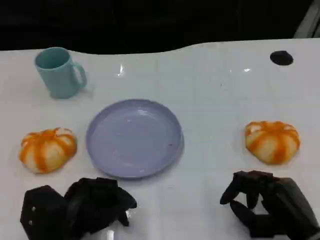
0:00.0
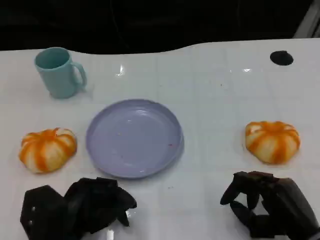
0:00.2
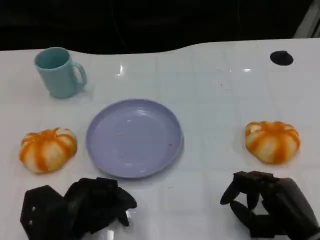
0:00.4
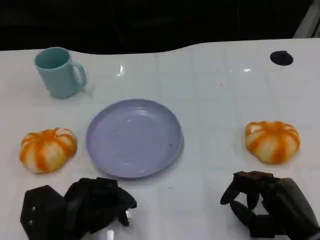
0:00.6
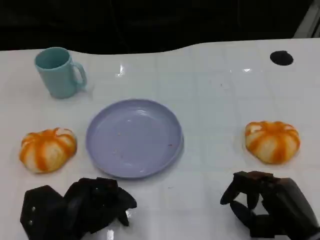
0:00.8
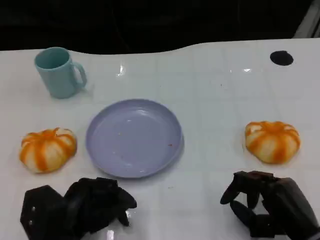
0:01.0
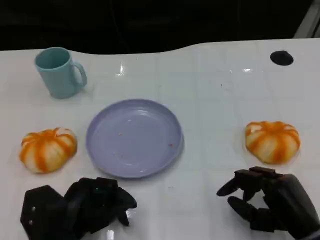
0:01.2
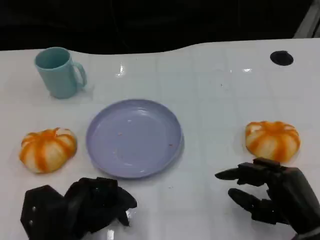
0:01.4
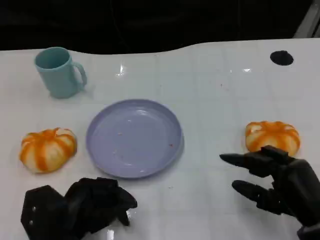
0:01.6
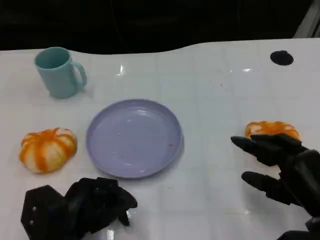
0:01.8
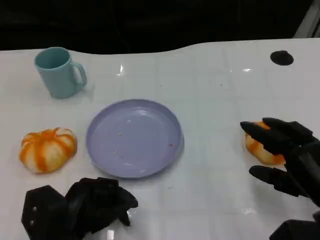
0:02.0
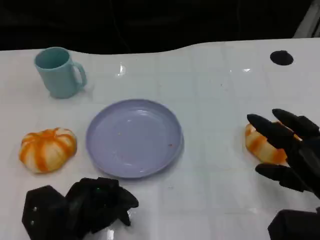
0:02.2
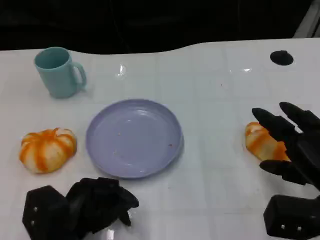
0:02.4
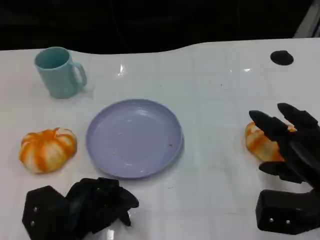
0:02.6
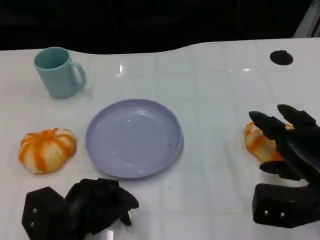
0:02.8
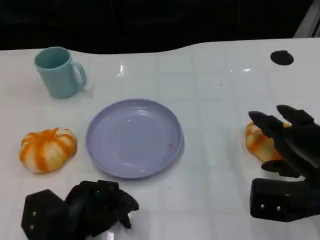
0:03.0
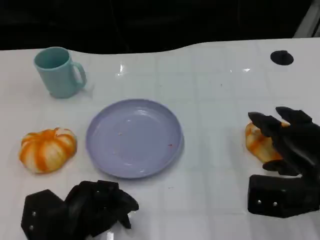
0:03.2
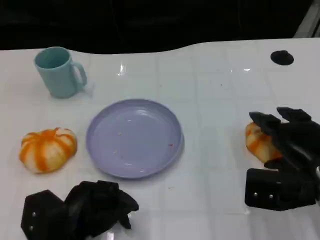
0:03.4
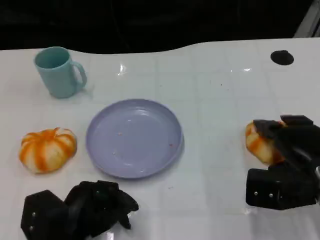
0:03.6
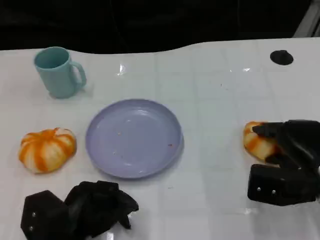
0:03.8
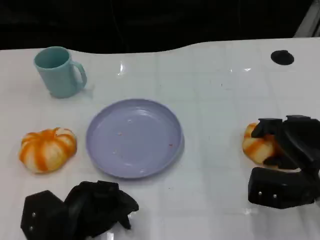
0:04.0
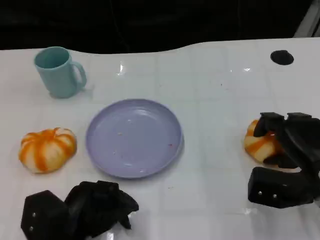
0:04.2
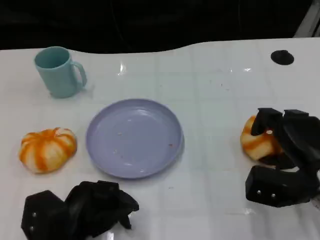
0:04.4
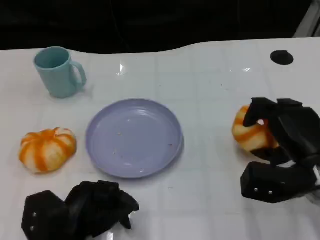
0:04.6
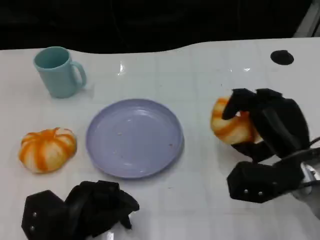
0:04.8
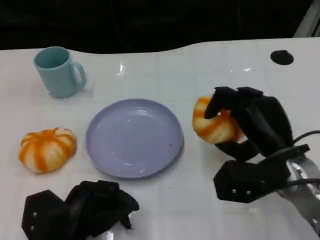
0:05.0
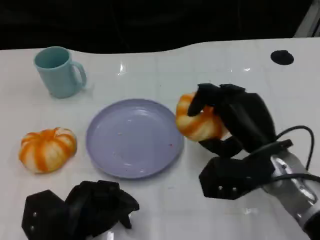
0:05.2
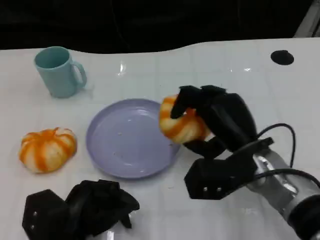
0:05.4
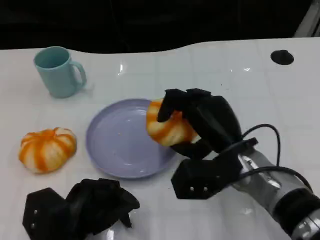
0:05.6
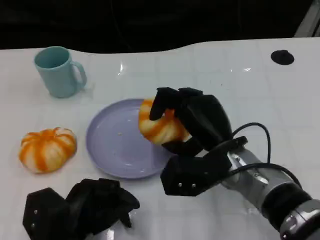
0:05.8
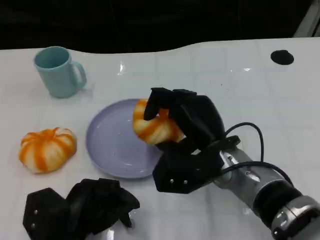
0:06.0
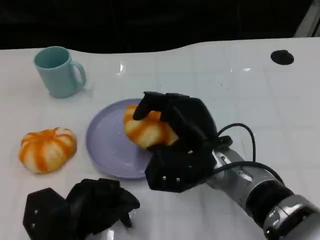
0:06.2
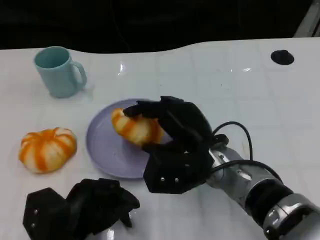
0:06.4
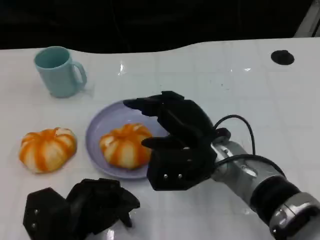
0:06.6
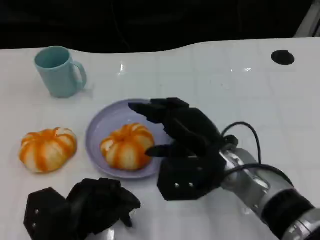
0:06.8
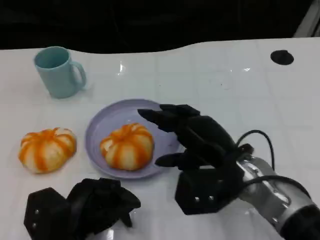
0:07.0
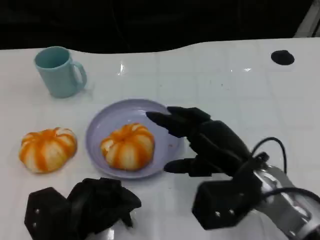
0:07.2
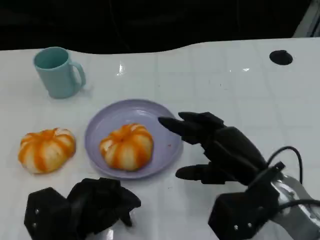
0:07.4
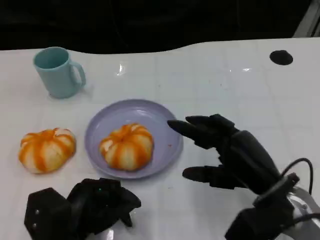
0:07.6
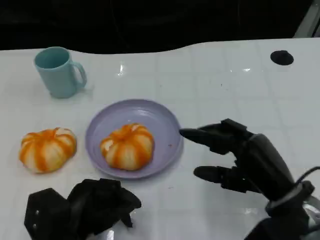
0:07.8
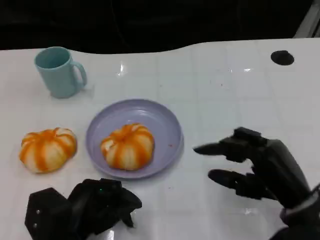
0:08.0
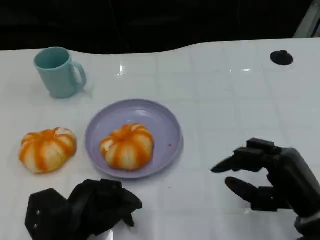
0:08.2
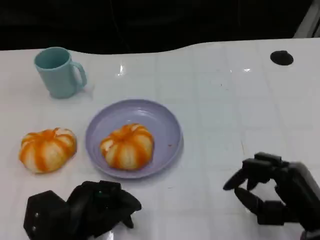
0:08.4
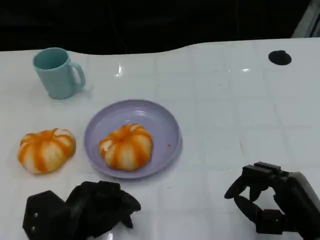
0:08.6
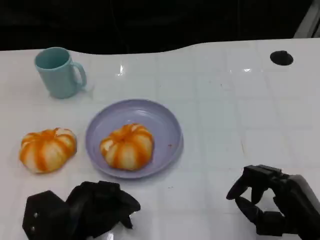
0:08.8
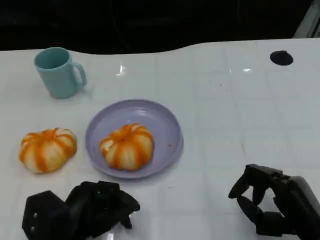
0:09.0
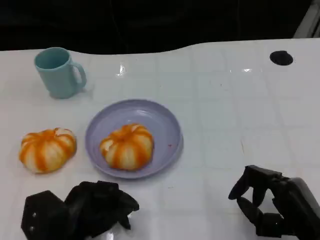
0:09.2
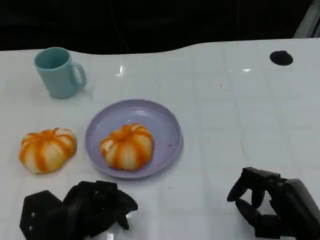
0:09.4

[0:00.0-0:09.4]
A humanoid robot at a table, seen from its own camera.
Task of the whole recording: Grasp the bread from the table and place it into the plate.
0:00.0 to 0:01.6: There are only small adjustments of the hands.
0:01.6 to 0:03.2: The right hand is displaced forward by approximately 5 cm.
0:04.8 to 0:06.2: The right hand travels to the left by approximately 15 cm.
0:06.2 to 0:07.8: The right hand shifts approximately 15 cm to the right and backward.
0:07.8 to 0:09.4: The right hand changes place by about 10 cm.

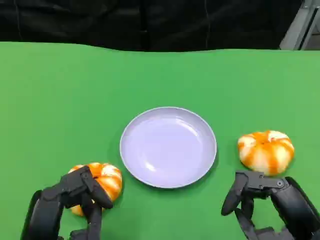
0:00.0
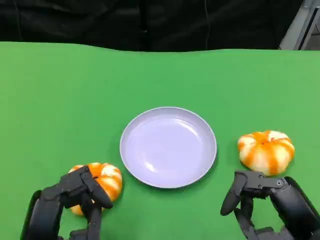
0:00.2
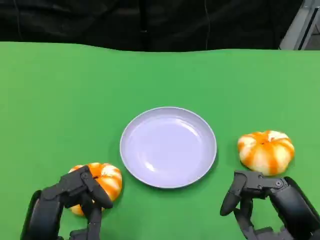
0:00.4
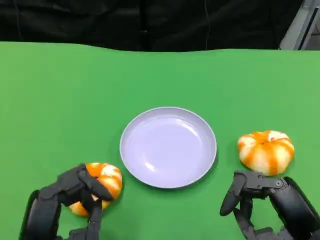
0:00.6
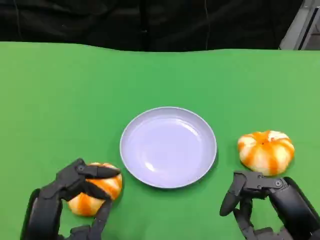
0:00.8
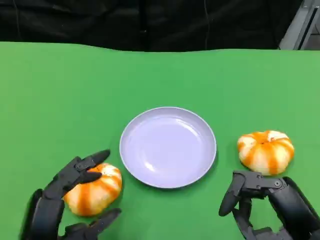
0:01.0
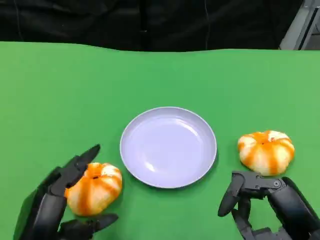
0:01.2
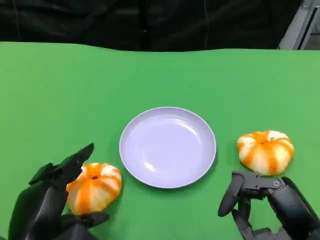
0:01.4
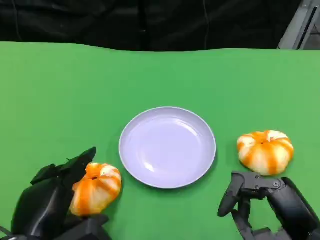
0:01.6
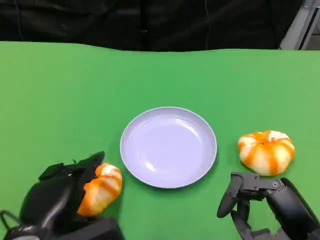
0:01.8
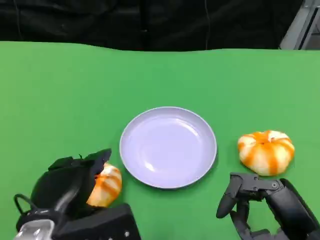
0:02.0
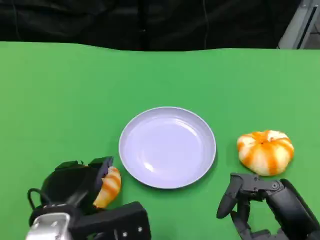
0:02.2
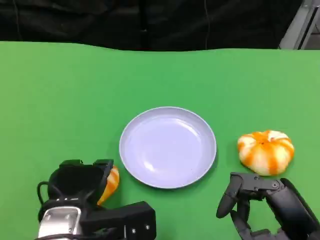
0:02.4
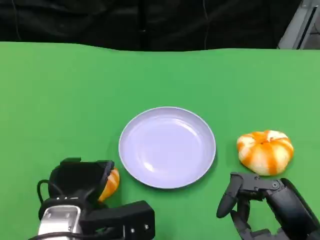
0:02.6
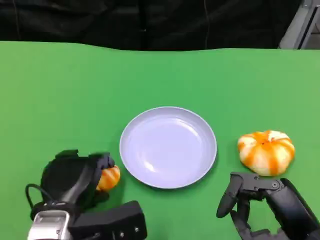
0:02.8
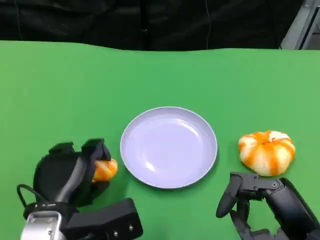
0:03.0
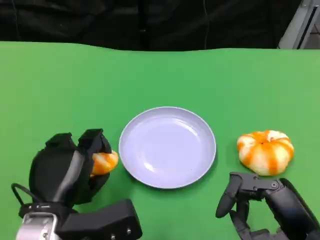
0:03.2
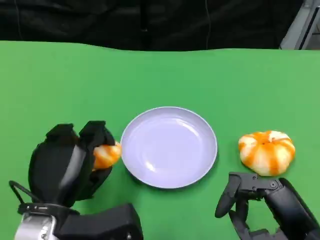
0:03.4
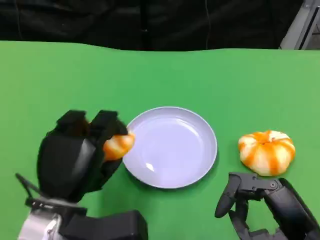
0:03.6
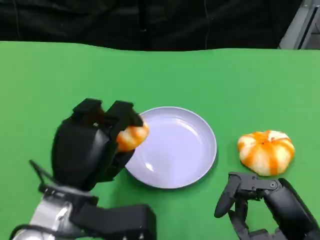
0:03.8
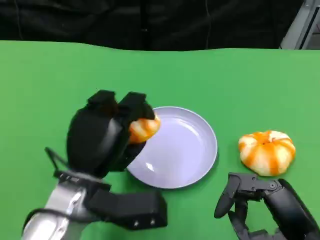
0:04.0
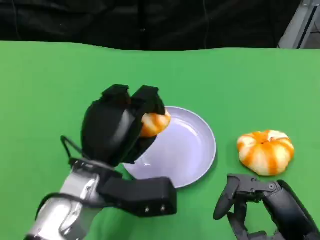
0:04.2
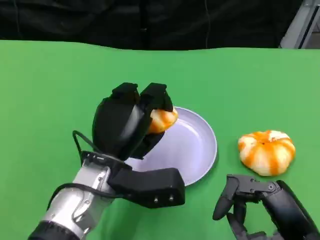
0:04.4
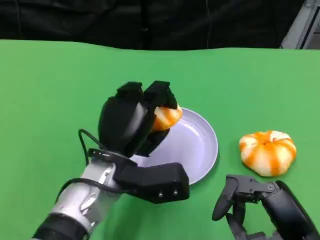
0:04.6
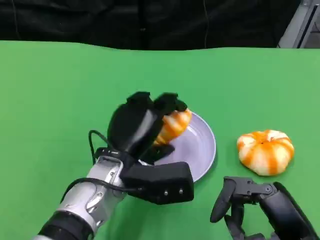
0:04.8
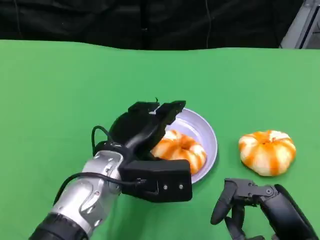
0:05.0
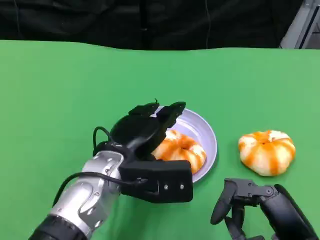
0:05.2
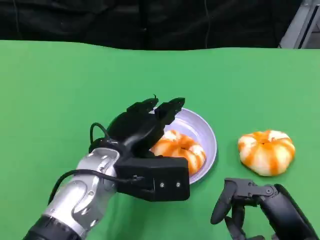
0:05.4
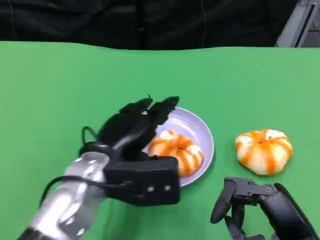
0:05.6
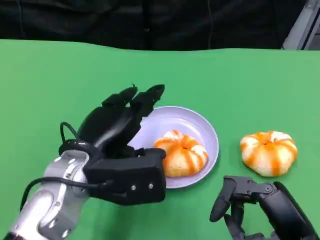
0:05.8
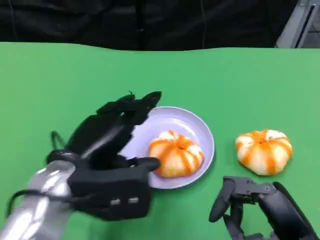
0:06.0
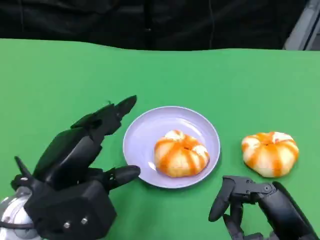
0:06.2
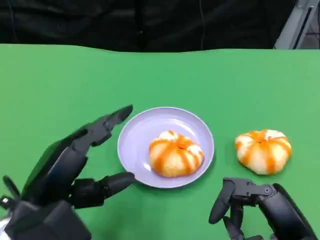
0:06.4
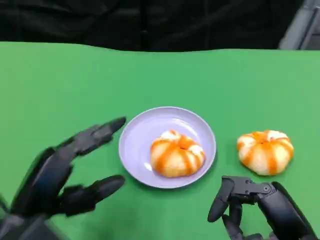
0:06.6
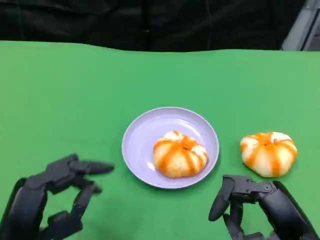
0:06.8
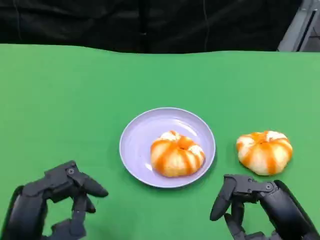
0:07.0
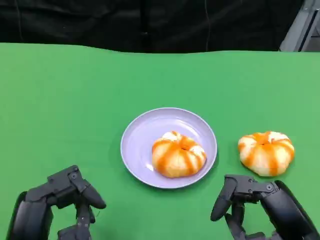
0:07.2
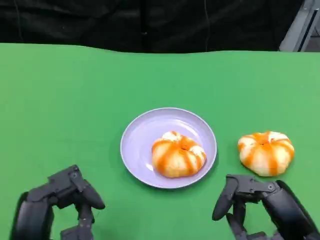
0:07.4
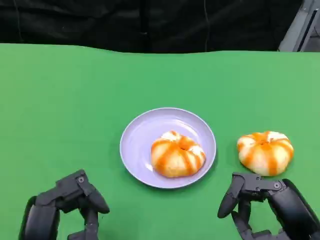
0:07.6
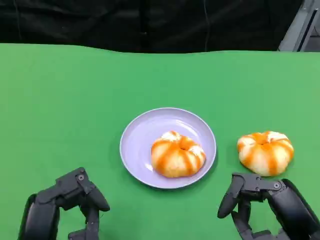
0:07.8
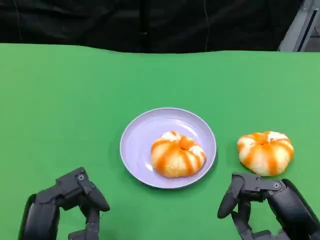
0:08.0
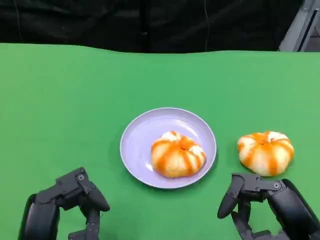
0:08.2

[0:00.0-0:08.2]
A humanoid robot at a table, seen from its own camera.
Task of the whole recording: Grasp the bread from the table and place it into the plate.
0:03.2 to 0:05.0: The left hand is displaced to the right and forward by approximately 10 cm.
0:05.0 to 0:06.6: The left hand is displaced to the left and backward by about 15 cm.
0:06.6 to 0:08.2: The hands make only small movements.

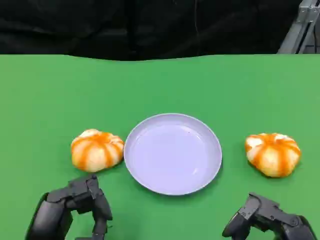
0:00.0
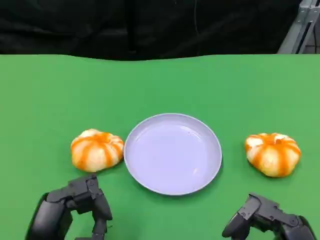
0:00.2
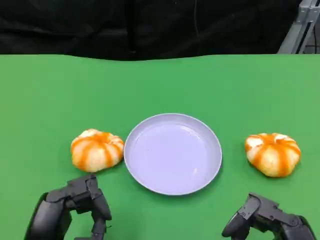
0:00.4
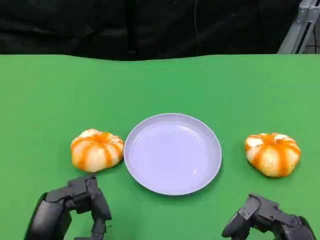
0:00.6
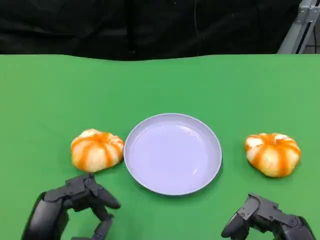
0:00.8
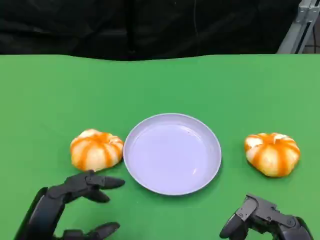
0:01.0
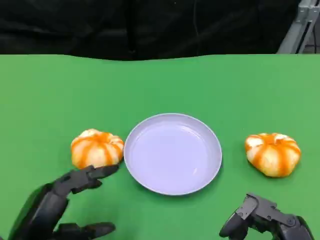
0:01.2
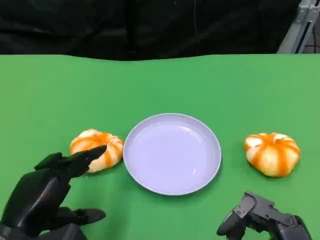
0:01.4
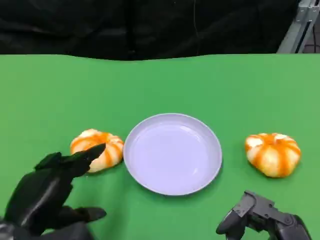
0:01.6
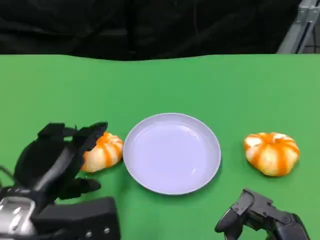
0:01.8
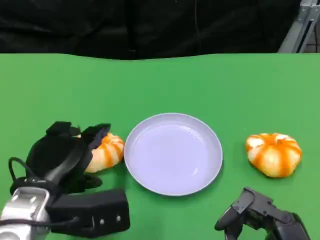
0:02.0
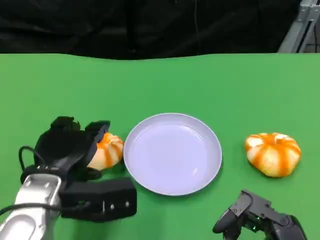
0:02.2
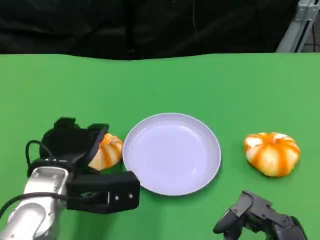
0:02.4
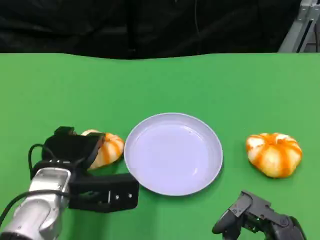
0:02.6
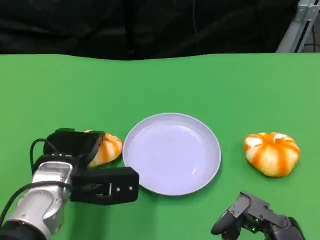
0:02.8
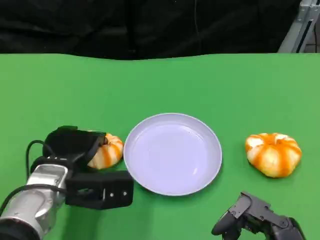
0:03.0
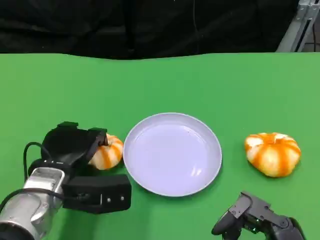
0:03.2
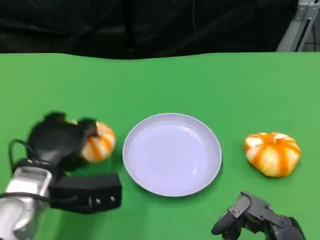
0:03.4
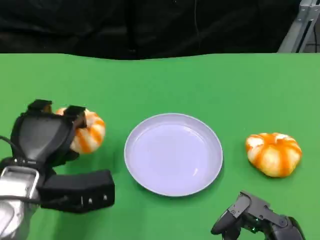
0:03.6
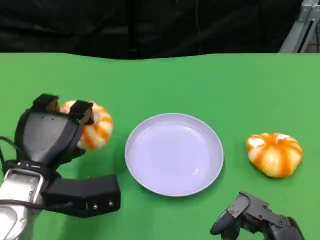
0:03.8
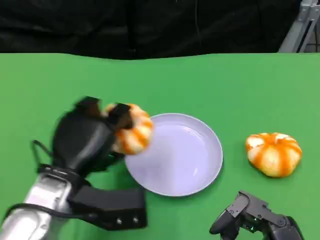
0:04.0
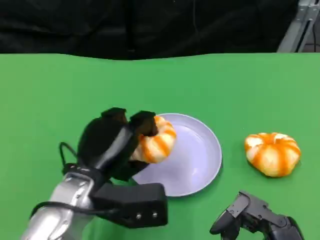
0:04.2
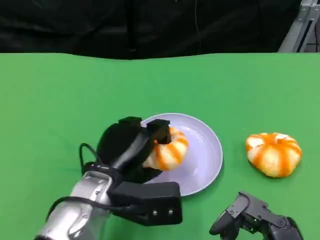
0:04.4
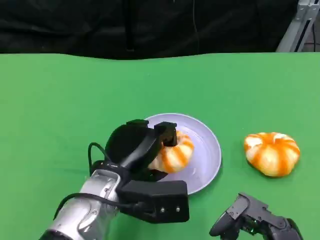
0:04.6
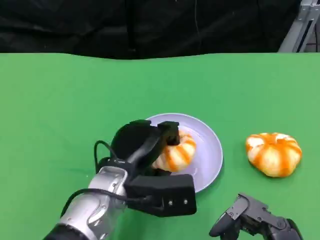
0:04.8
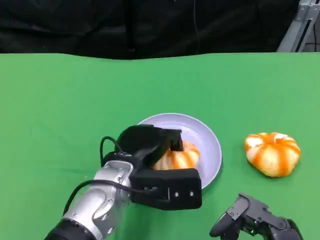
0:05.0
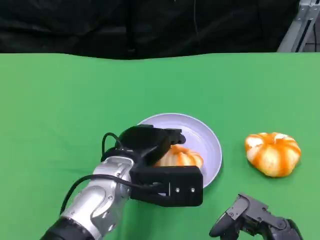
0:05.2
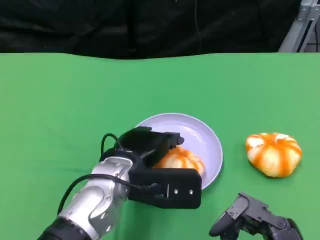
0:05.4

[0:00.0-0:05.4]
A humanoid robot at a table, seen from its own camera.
Task of the whole recording: Grasp the bread from the table and place it into the plate.
0:01.4 to 0:02.8: The left hand shifts some 15 cm forward and to the right.
0:02.8 to 0:04.0: The left hand shifts by roughly 5 cm.
0:04.0 to 0:05.4: The left hand heads to the right, covering about 5 cm.
